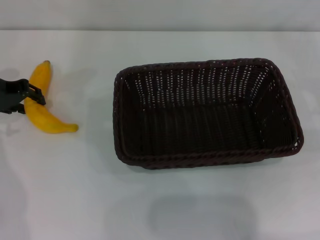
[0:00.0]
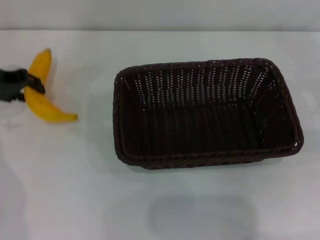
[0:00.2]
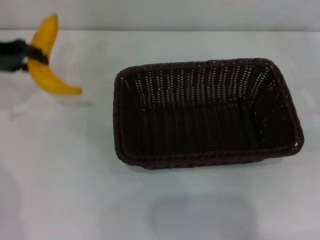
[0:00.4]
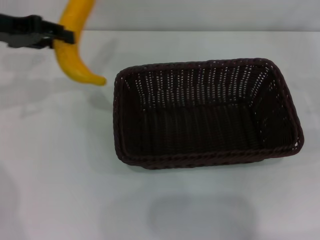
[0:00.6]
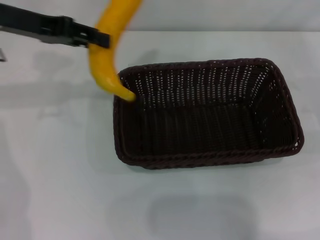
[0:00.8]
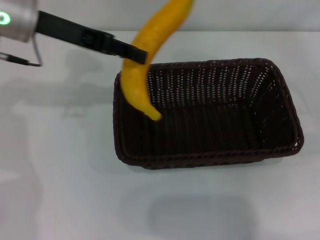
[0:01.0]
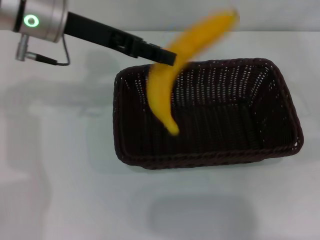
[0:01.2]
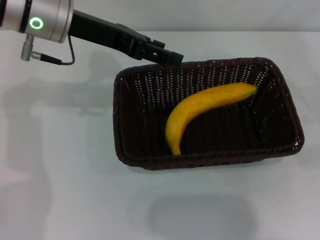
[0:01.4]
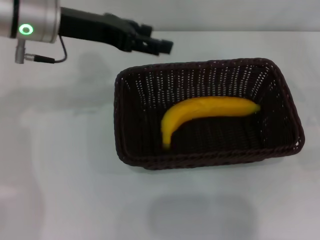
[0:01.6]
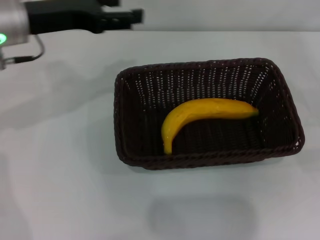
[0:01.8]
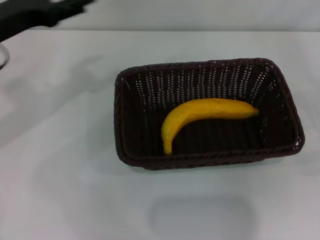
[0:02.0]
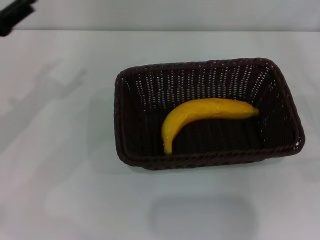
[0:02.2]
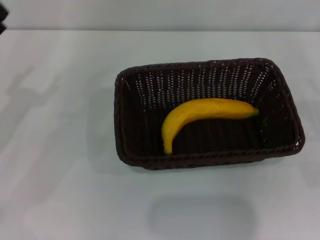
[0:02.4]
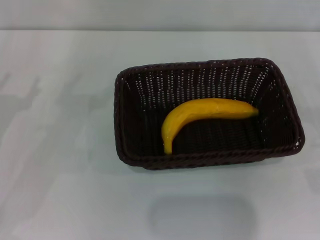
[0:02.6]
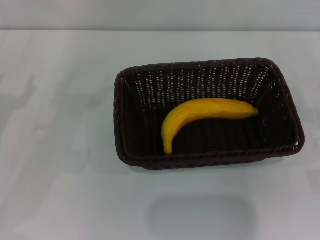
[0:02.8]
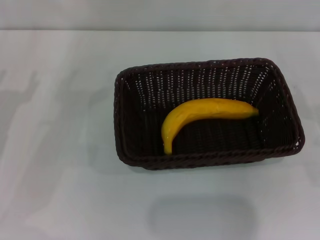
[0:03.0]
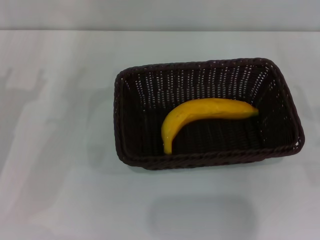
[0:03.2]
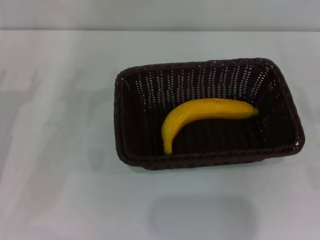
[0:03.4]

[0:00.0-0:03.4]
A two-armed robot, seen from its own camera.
Step, 0:00.2 to 0:01.4: Place the banana into the dark basket with the left gripper.
0:00.0 to 0:01.6: The left gripper heads to the right and upward, covering about 15 cm, and opens.
0:01.6 to 0:03.4: The right gripper changes place by roughly 5 cm. The left gripper goes some 20 cm downward, to the left and backward.

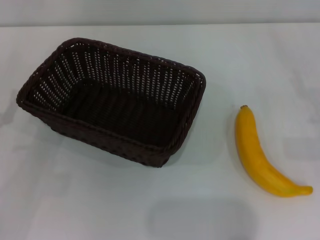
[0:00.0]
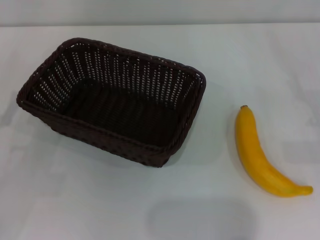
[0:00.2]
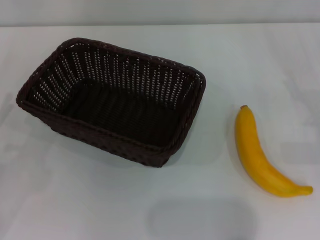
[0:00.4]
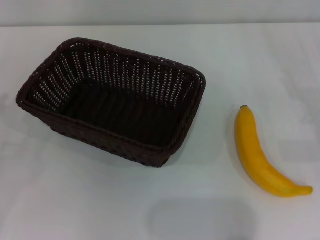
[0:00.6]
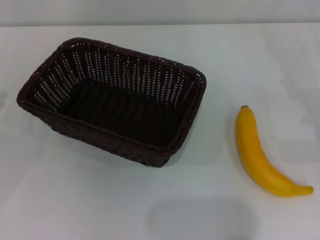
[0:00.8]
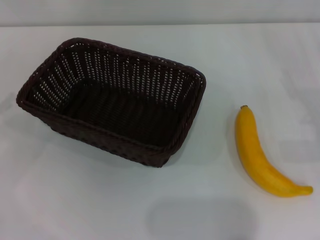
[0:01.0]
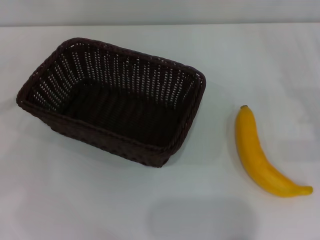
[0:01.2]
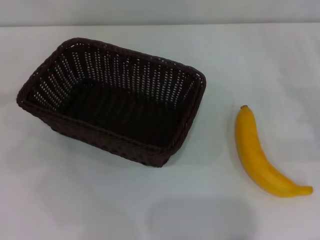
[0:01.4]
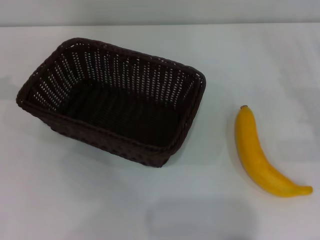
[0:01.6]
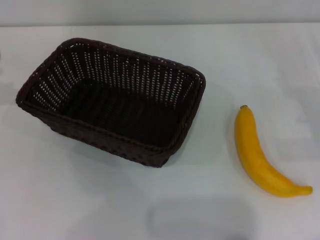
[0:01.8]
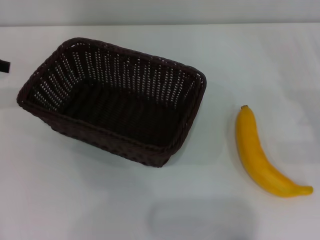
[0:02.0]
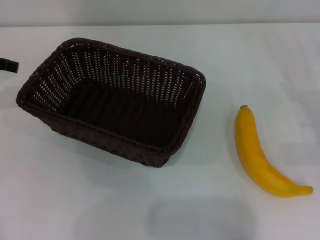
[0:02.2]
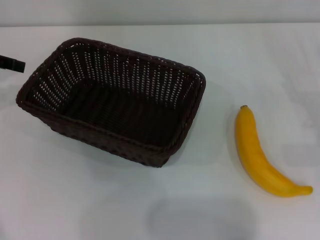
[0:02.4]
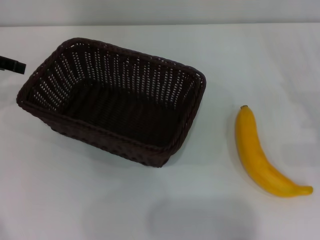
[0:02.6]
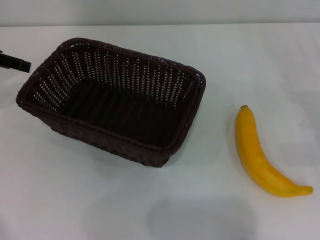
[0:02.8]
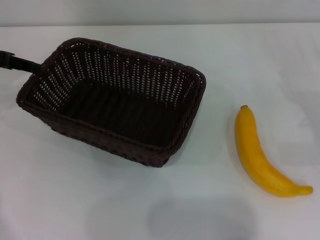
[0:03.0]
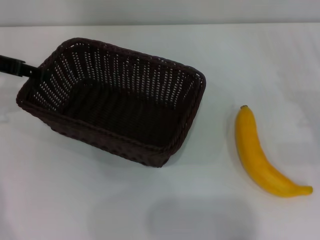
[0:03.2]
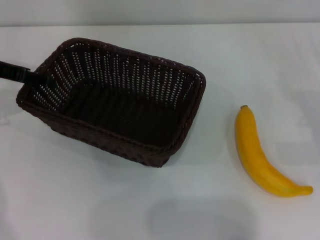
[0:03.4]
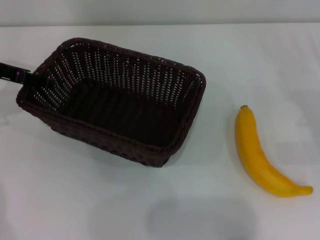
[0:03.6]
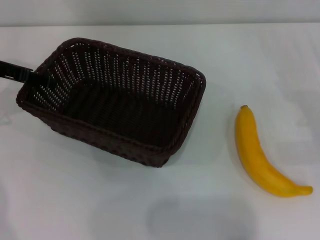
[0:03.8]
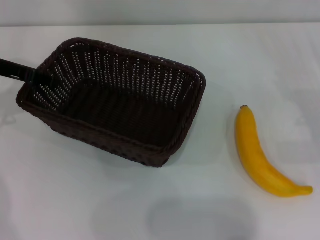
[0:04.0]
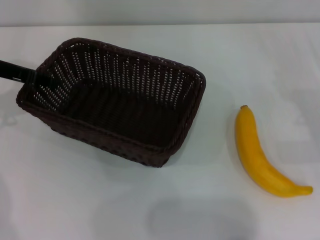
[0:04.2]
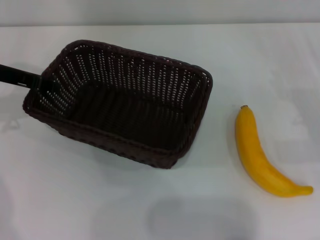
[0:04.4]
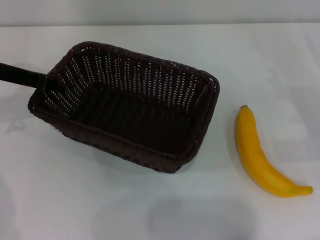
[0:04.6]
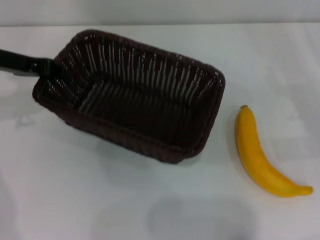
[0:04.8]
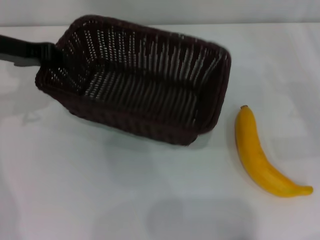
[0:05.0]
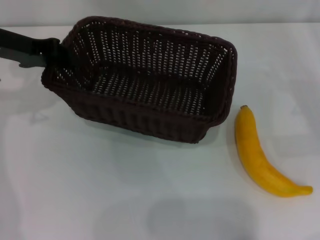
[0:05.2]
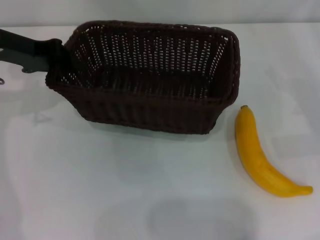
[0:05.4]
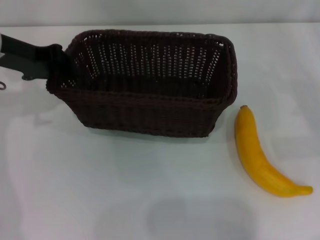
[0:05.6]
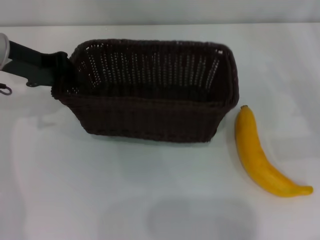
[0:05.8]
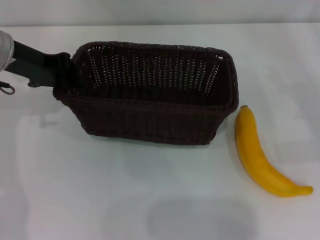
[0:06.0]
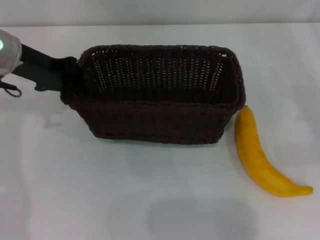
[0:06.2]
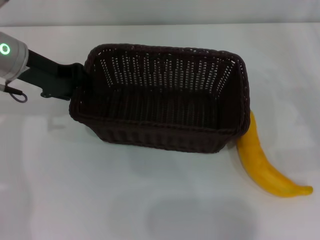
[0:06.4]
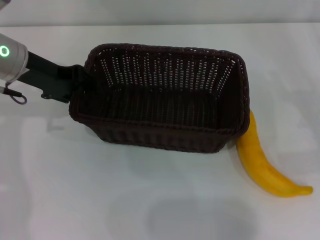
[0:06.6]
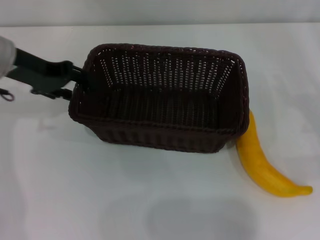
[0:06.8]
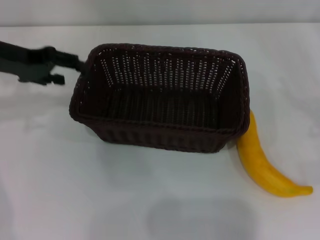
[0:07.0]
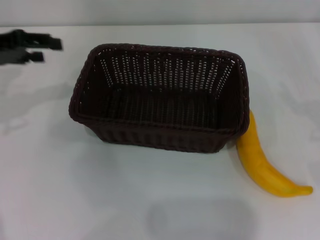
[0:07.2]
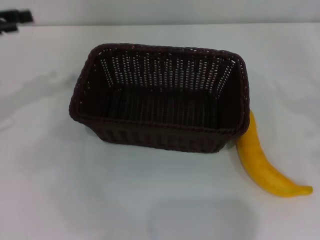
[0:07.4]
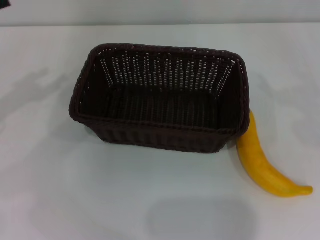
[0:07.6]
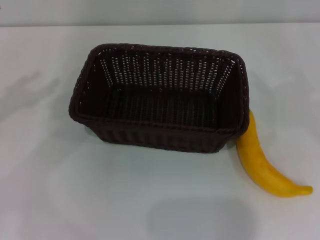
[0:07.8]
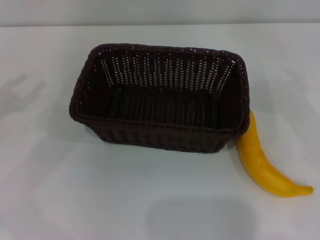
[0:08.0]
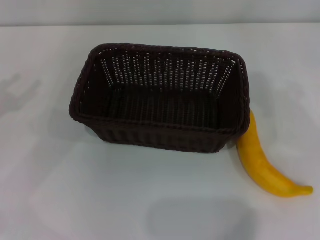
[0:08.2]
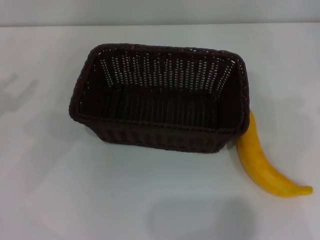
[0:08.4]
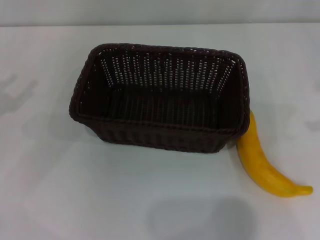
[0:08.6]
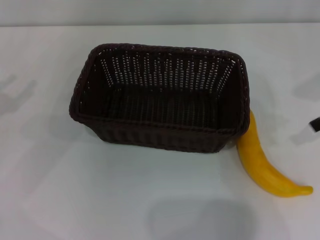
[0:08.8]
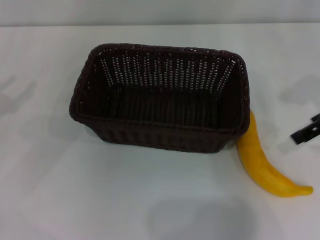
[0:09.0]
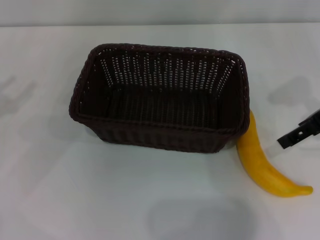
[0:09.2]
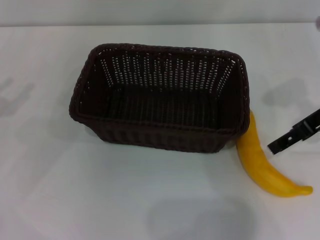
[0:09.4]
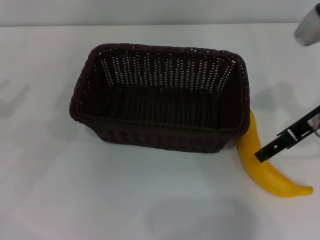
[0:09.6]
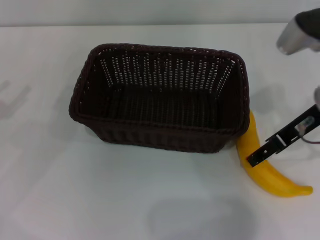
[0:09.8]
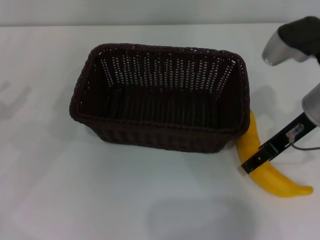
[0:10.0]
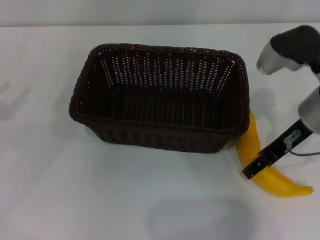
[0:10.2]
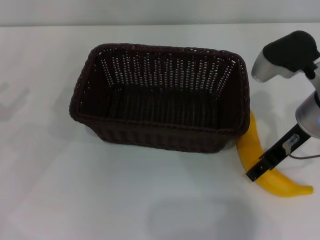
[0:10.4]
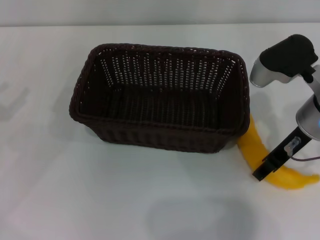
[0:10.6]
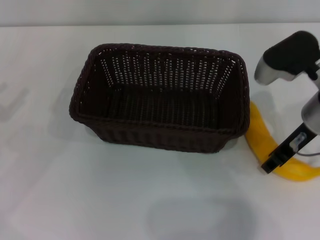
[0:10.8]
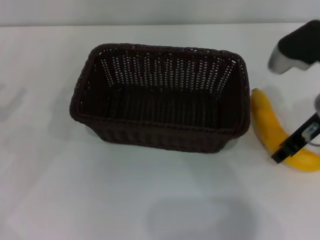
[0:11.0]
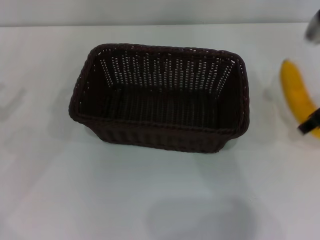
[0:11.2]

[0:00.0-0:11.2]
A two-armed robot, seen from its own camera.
Step, 0:00.0 to 0:05.0: Pick up the dark basket with the left gripper.
Step, 0:05.2 to 0:07.0: Place the dark basket in the center of view with the left gripper.
Step, 0:07.2 to 0:11.2: Pick up the banana with the right gripper.
0:01.6 to 0:03.2: The left gripper shifts some 10 cm to the right and downward.
0:03.2 to 0:04.8: The left gripper closes its fingers.
0:04.8 to 0:06.4: The left gripper is displaced to the right by some 5 cm.
0:06.4 to 0:08.0: The left gripper moves to the left and backward, about 20 cm, and opens.
0:08.0 to 0:09.6: The right gripper goes roughly 20 cm to the left.
0:09.6 to 0:11.2: The right gripper closes up.

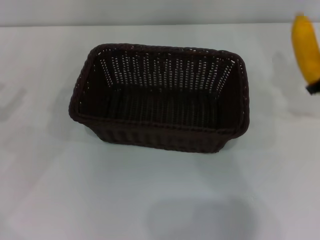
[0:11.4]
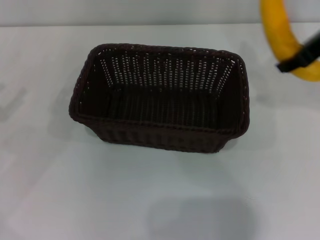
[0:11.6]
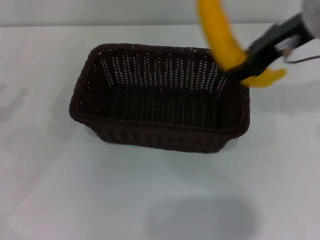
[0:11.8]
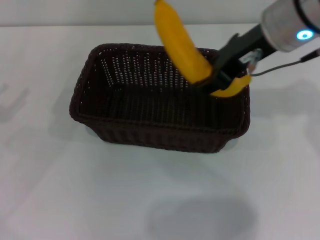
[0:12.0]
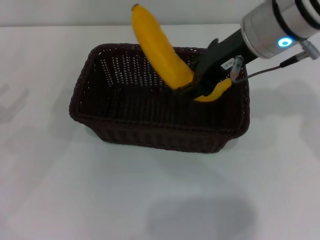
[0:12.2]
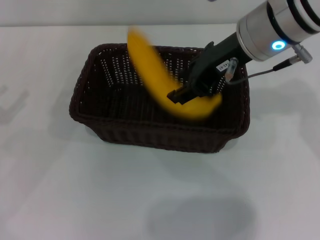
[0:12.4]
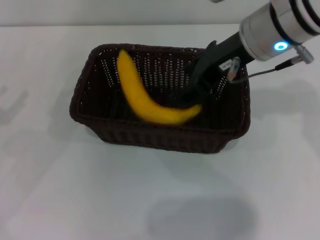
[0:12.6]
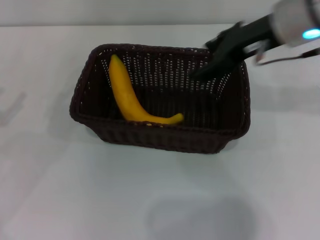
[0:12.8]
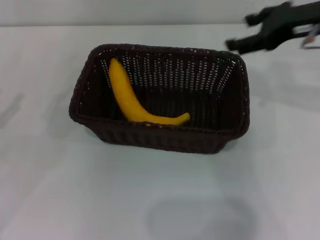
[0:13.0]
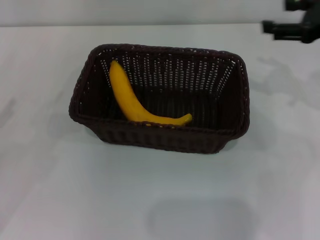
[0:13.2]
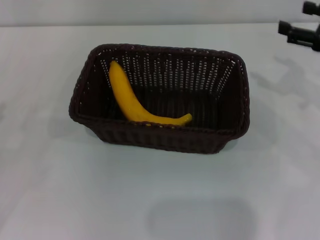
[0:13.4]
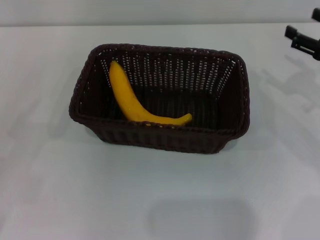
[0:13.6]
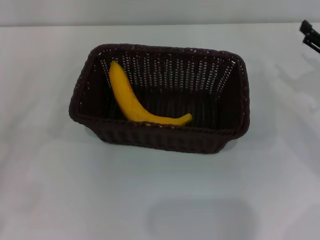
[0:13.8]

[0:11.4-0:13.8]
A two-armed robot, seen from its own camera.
Step, 0:11.4 to 0:12.8: Place the banana into the dark basket with the right gripper.
0:11.4 to 0:12.6: The right gripper moves to the left, some 15 cm, and opens up.
0:12.6 to 0:13.8: The left gripper shifts about 10 cm downward and backward. The right gripper moves to the right and downward, some 25 cm, and opens.

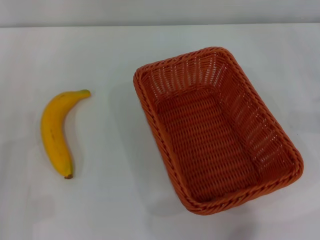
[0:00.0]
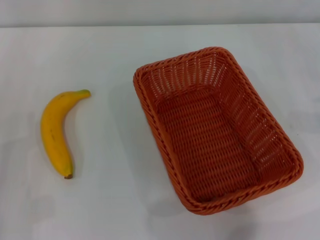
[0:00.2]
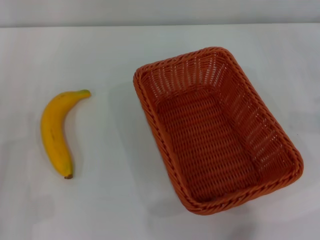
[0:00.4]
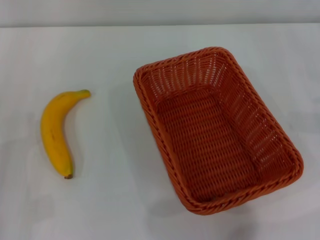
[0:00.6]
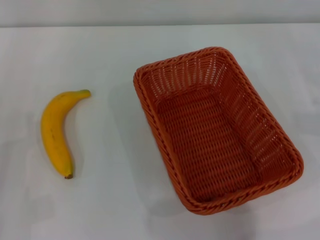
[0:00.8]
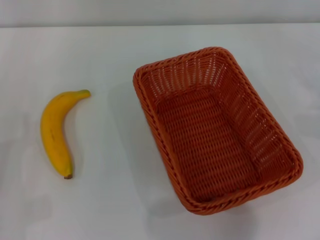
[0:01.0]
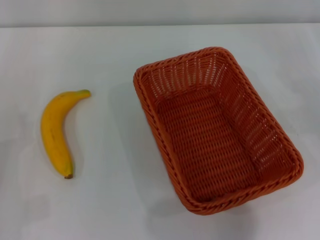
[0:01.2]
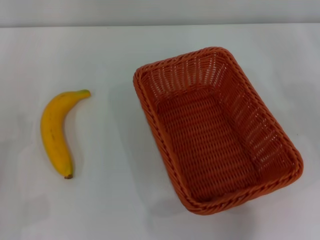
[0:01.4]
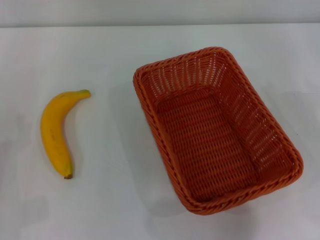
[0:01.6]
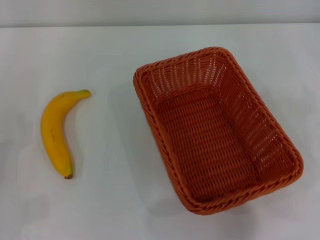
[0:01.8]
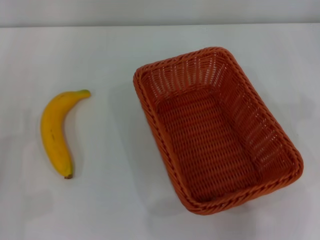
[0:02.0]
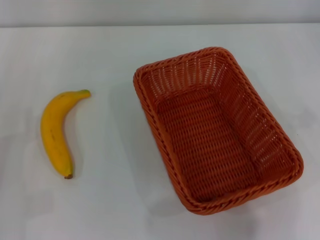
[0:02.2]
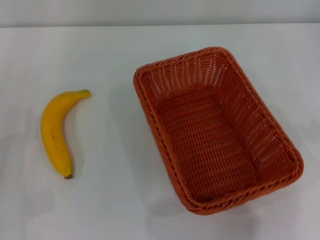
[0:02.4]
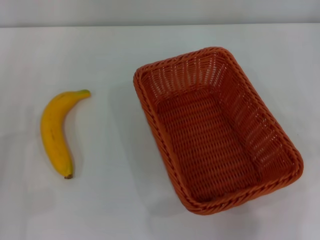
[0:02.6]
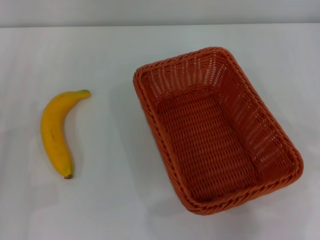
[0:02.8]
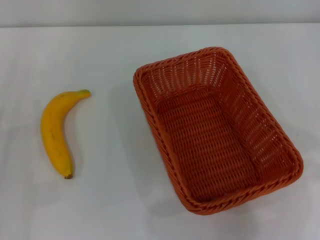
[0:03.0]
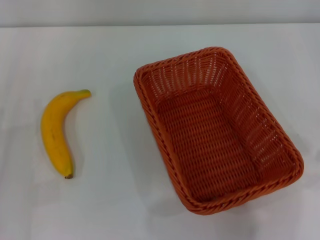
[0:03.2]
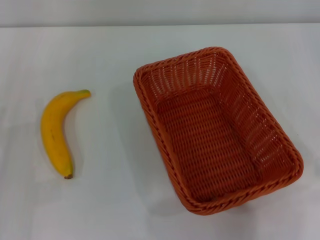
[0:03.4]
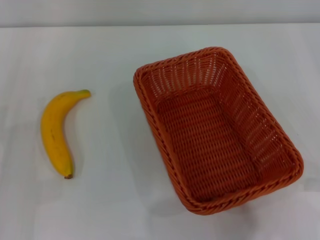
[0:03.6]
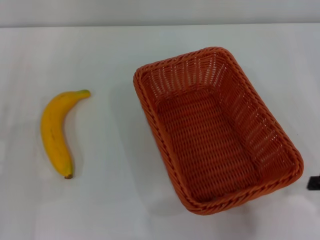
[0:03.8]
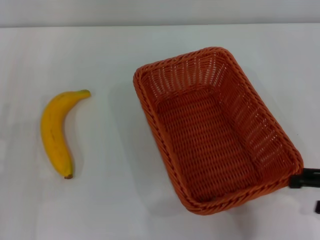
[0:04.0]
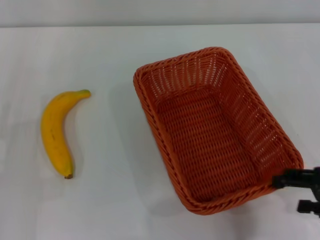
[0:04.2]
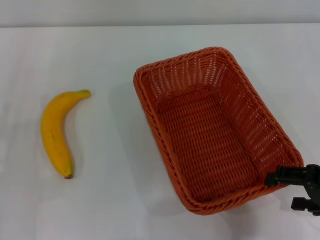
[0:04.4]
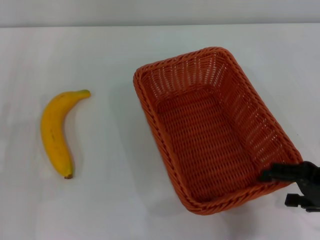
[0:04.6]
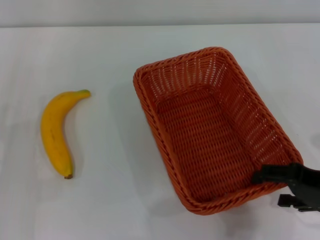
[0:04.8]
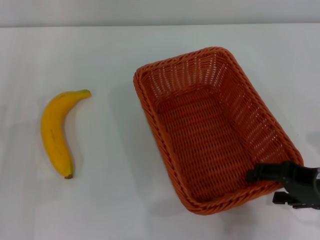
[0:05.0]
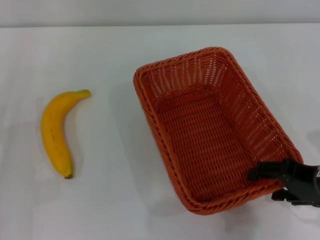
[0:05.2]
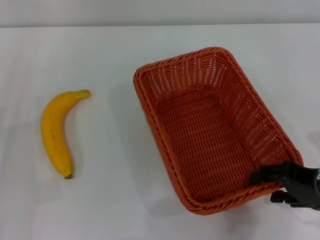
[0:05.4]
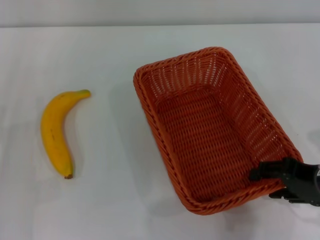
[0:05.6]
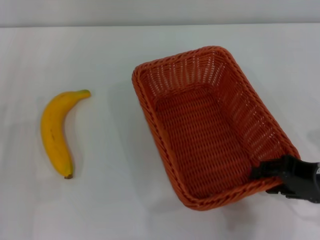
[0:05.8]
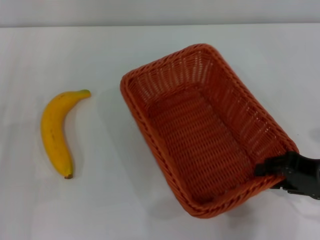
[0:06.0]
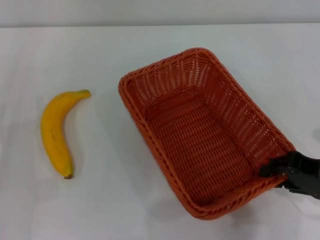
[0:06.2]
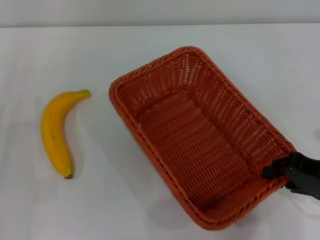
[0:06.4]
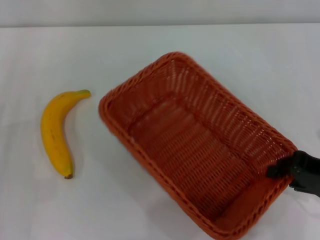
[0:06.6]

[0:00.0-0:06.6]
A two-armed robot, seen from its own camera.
0:03.2 to 0:05.0: The right gripper shifts roughly 10 cm to the left and downward.
0:05.0 to 0:06.6: The right gripper closes up.
